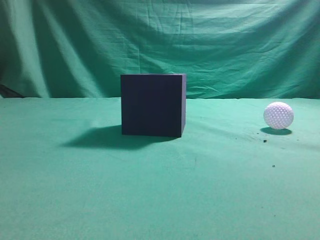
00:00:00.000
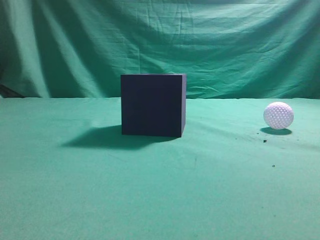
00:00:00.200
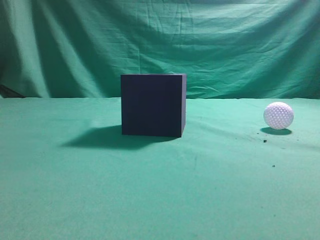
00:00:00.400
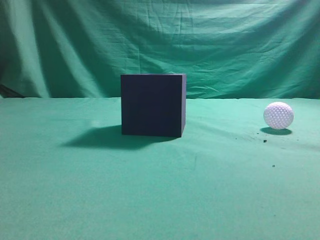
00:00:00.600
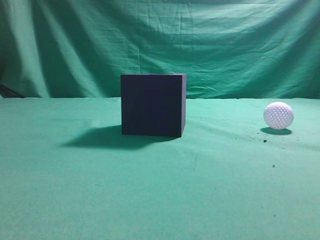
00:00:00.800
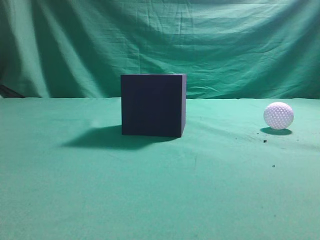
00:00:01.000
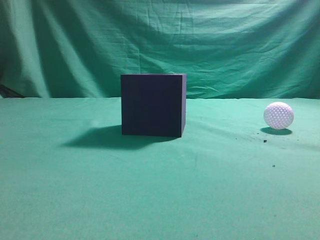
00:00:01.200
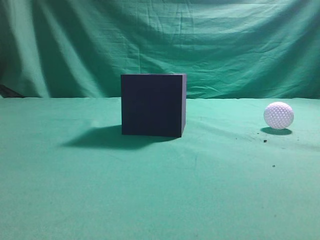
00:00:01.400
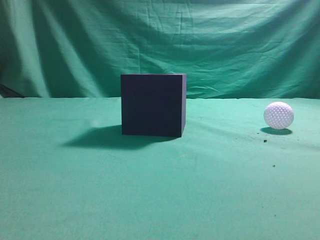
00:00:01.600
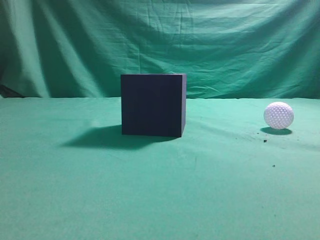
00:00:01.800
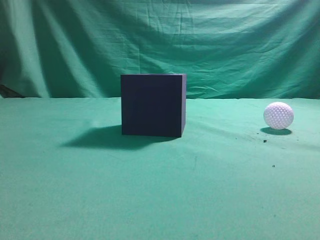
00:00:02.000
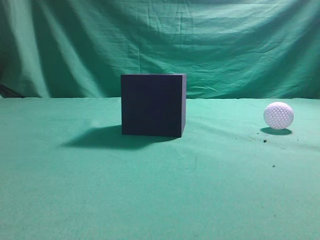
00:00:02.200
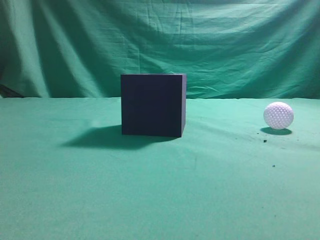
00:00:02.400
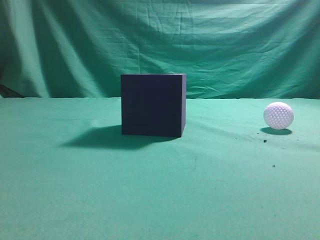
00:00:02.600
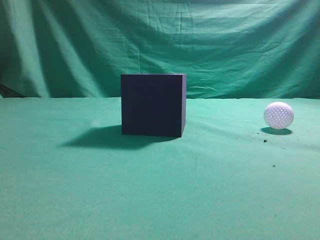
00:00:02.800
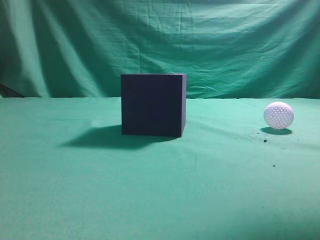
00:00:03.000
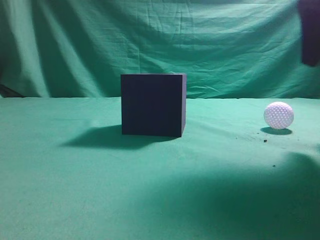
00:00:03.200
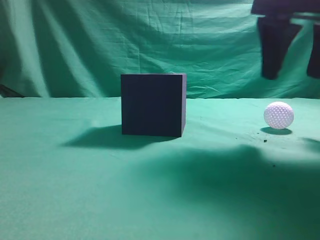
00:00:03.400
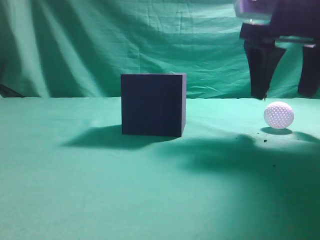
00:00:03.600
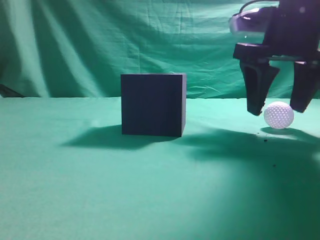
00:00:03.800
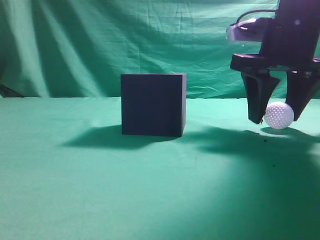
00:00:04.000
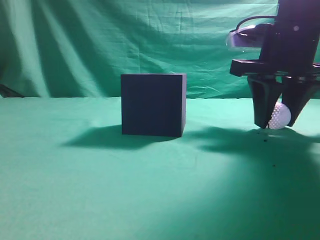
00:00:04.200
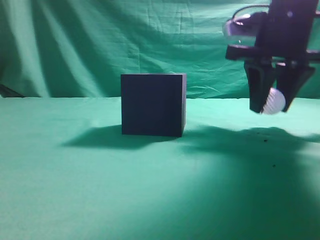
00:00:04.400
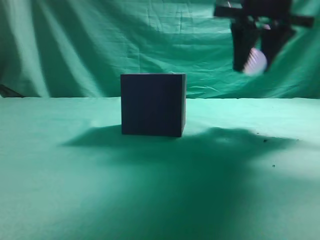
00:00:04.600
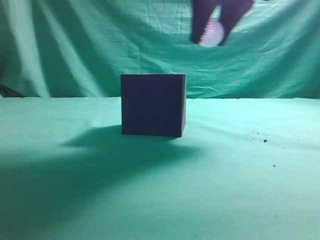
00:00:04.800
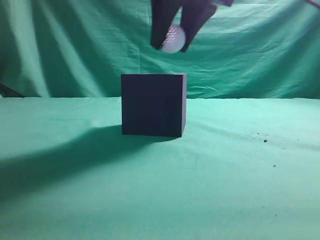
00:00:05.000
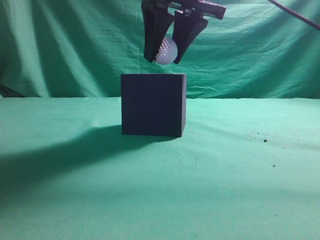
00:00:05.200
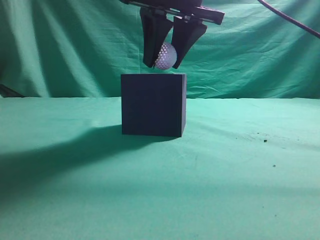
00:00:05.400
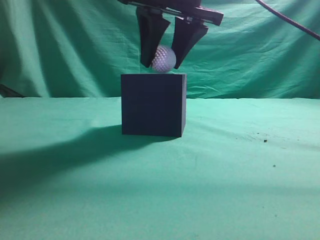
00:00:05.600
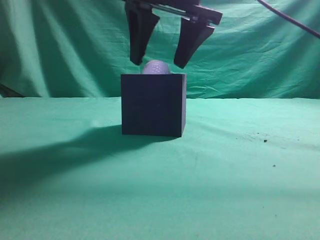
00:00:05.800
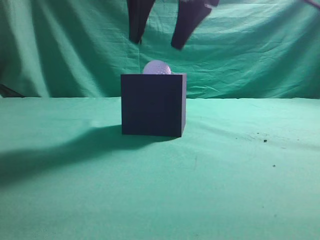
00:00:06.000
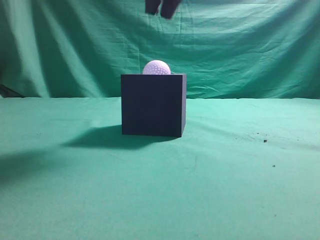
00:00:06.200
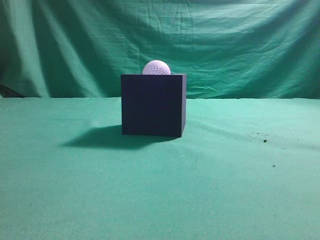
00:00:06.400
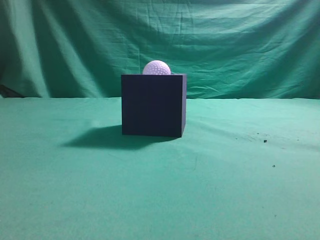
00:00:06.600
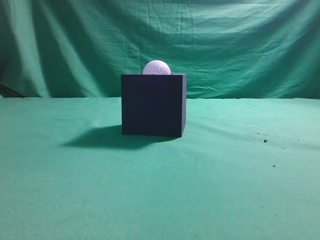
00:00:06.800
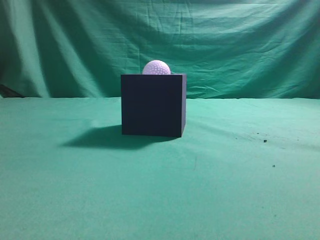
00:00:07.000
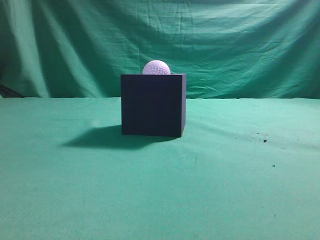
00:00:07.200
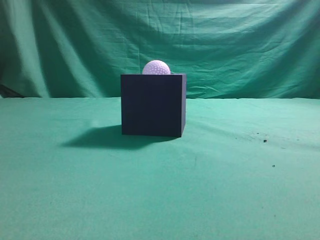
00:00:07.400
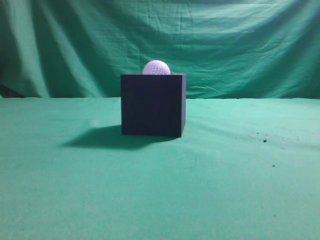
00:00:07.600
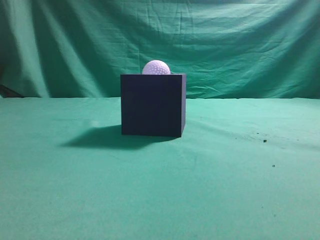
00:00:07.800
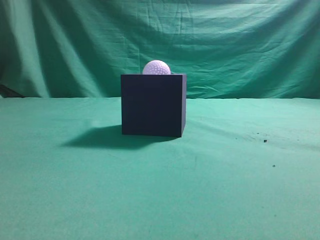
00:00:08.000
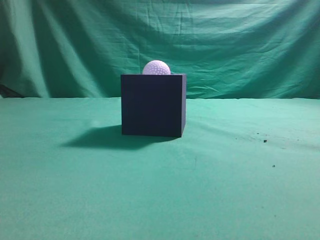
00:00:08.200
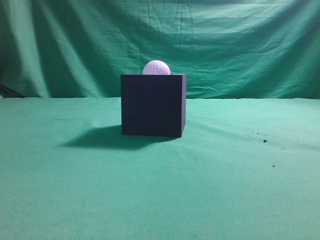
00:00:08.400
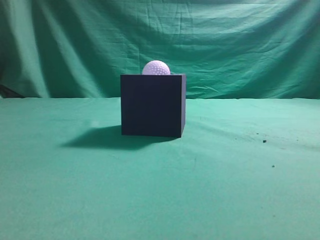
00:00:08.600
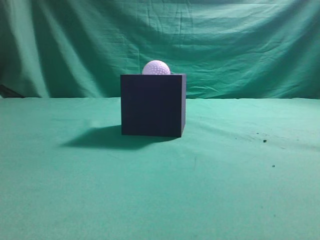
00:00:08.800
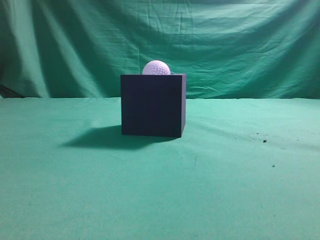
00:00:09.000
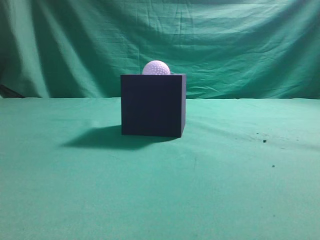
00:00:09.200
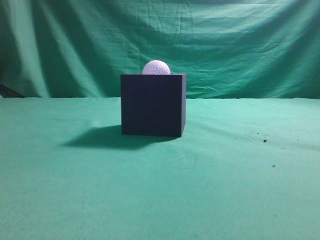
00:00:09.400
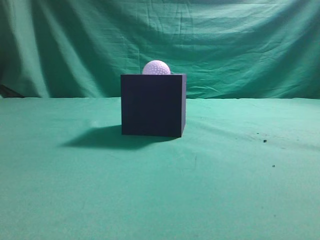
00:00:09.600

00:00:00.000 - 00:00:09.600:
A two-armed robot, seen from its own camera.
Task of the whole recording: Pick up the ball and place it in the circular groove above the cube.
Step, 00:00:00.000 - 00:00:03.600: Grasp the sphere on the table.
Step, 00:00:03.800 - 00:00:05.000: Place the sphere into the sphere-shaped recess.
00:00:01.600 - 00:00:03.200: The right gripper travels forward by about 20 cm.
00:00:03.200 - 00:00:04.800: The right gripper travels to the left and forward by about 10 cm, goes downward and returns, some 10 cm each way, and opens, then closes once more.
00:00:04.800 - 00:00:06.400: The right gripper shifts roughly 10 cm upward and to the left, and closes its fingers.
